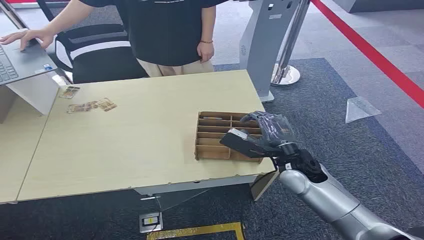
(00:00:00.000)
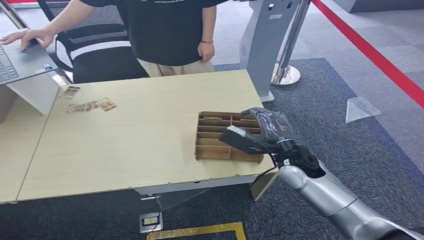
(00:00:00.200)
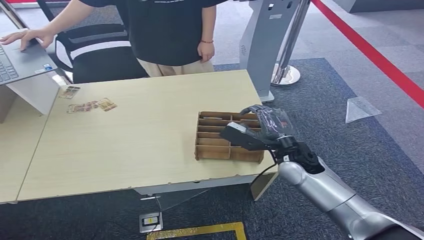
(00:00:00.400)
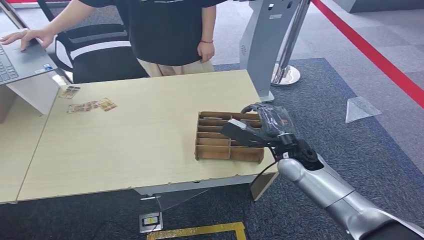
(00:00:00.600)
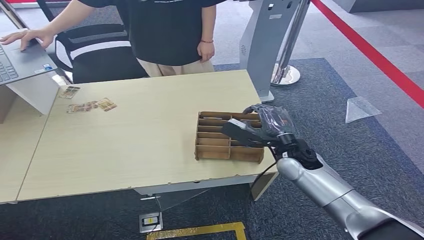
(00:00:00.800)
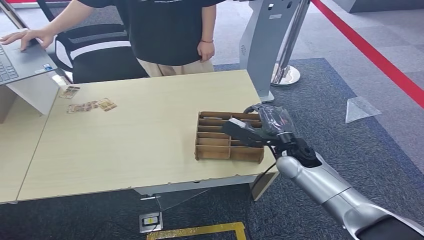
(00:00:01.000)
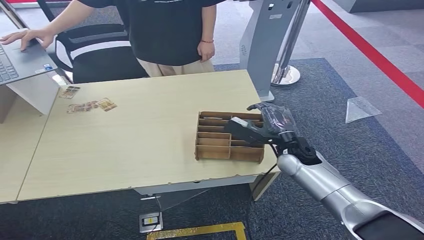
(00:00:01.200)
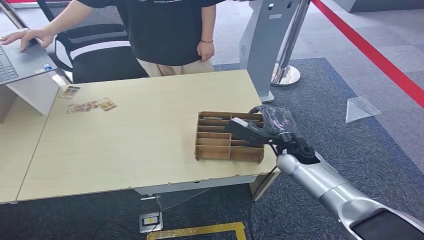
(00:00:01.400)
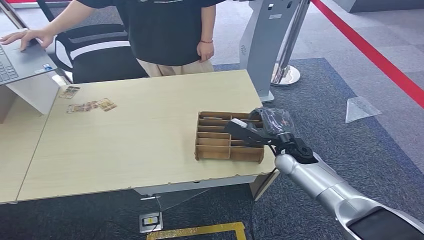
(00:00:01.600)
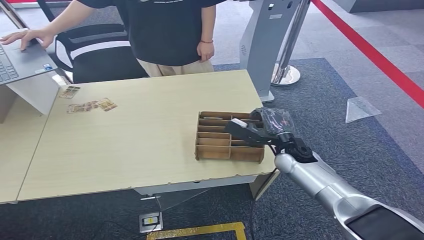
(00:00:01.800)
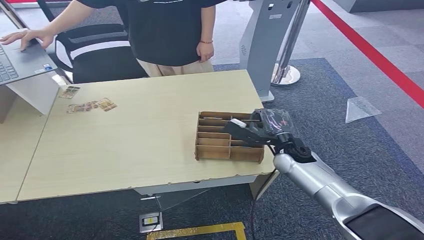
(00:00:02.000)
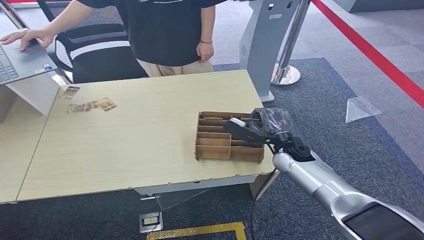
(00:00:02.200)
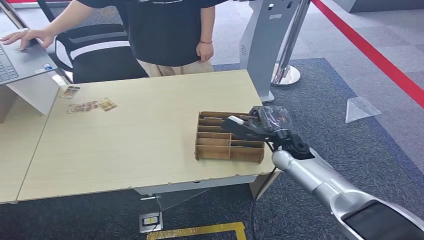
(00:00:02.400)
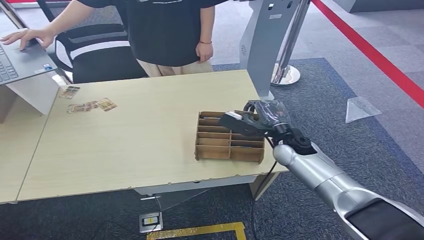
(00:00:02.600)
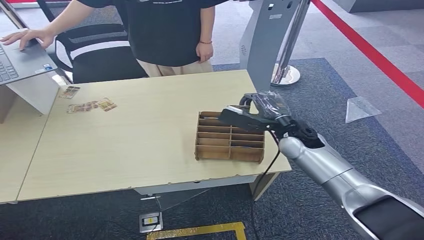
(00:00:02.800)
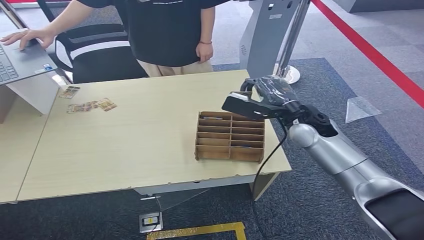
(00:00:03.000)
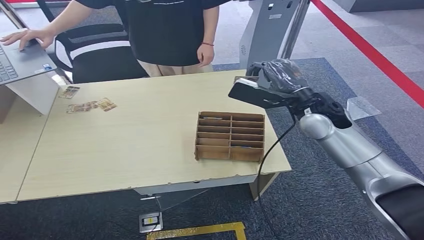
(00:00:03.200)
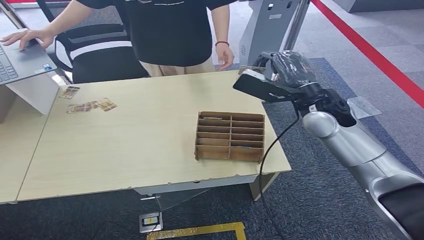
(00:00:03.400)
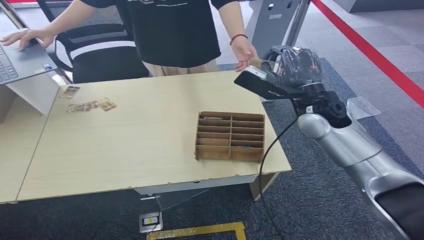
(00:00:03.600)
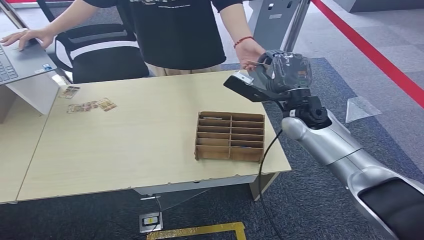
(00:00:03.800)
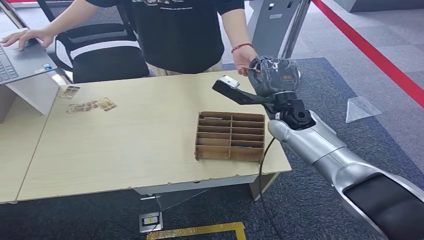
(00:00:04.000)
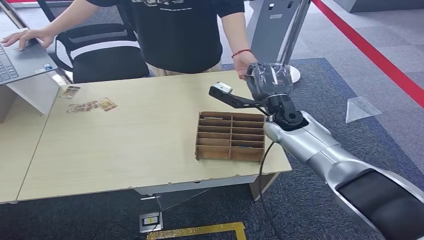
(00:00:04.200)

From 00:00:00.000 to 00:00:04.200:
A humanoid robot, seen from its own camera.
Step, from 00:00:00.000 to 00:00:03.200: Pick up the room card from the card holder.
Step, from 00:00:03.400 to 00:00:04.200: Hand the room card to the target.
From 00:00:01.400 to 00:00:02.800: The right hand goes some 5 cm upward.
